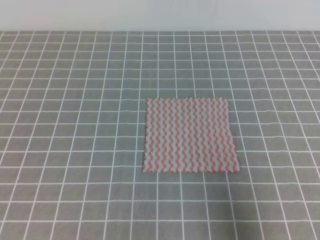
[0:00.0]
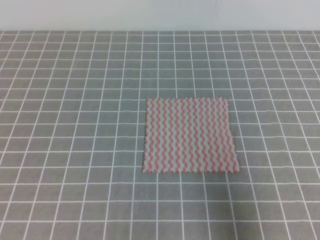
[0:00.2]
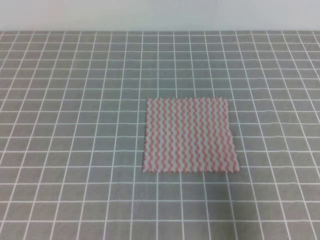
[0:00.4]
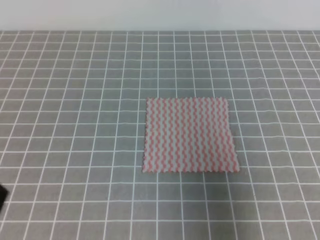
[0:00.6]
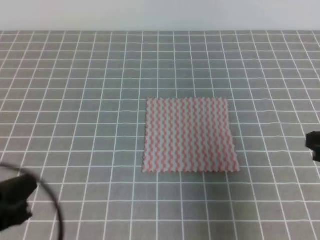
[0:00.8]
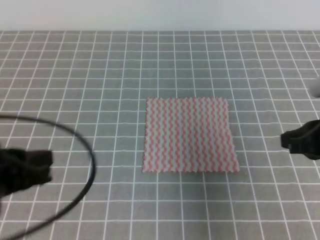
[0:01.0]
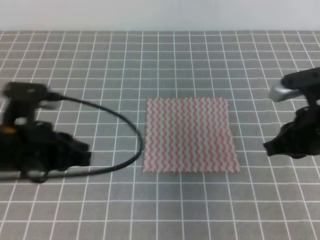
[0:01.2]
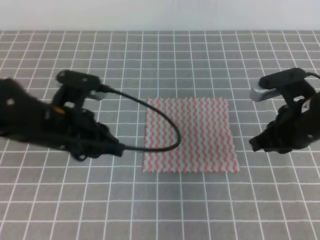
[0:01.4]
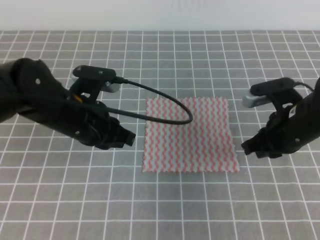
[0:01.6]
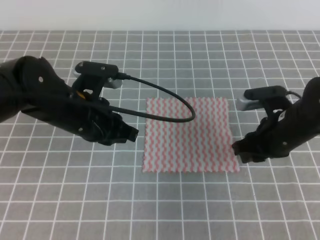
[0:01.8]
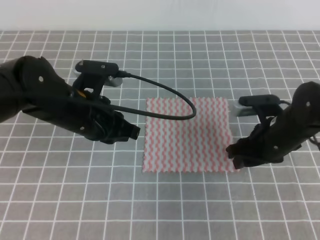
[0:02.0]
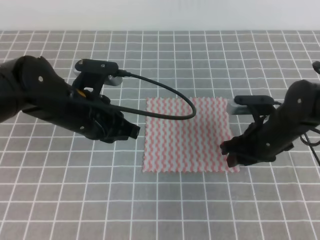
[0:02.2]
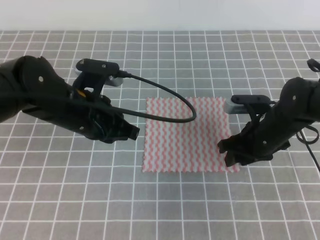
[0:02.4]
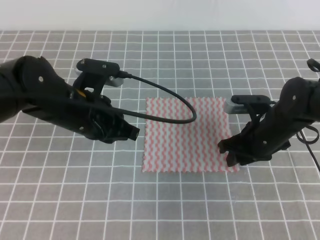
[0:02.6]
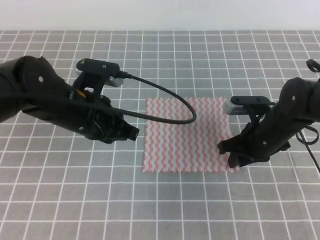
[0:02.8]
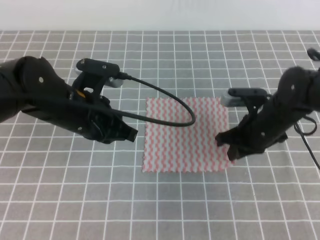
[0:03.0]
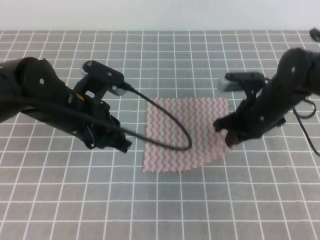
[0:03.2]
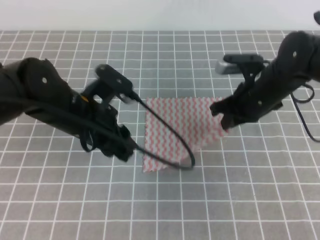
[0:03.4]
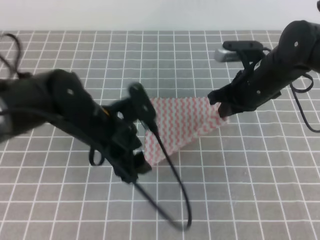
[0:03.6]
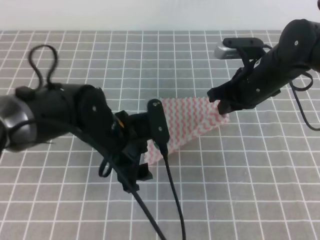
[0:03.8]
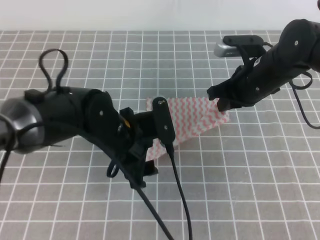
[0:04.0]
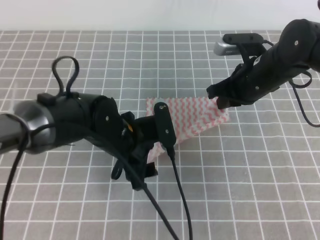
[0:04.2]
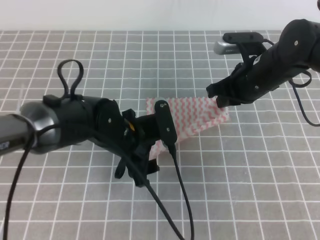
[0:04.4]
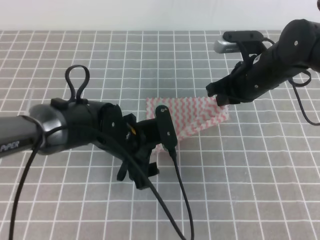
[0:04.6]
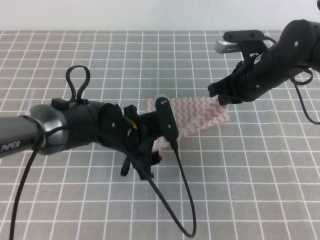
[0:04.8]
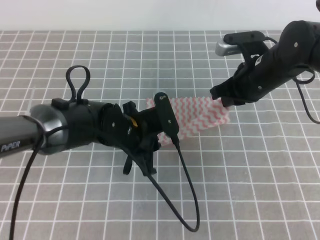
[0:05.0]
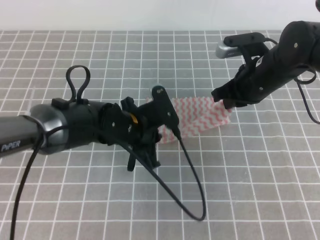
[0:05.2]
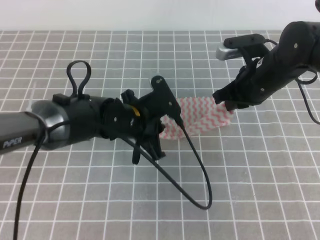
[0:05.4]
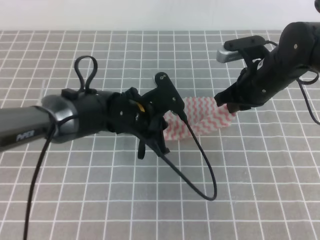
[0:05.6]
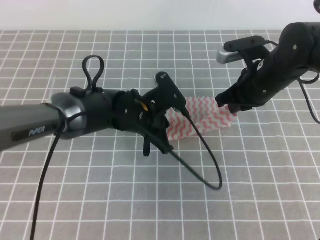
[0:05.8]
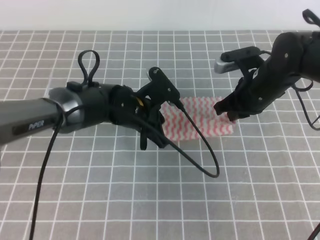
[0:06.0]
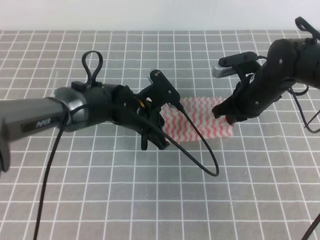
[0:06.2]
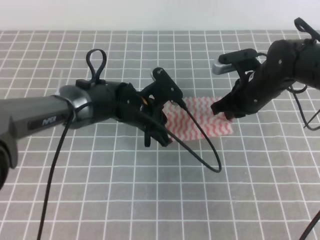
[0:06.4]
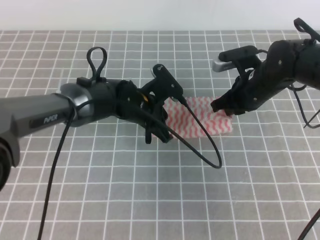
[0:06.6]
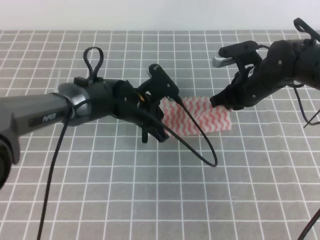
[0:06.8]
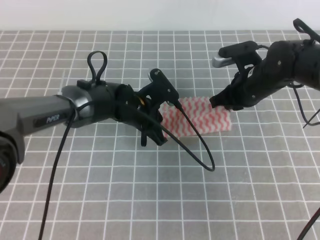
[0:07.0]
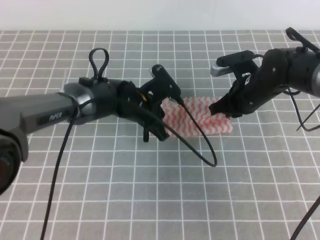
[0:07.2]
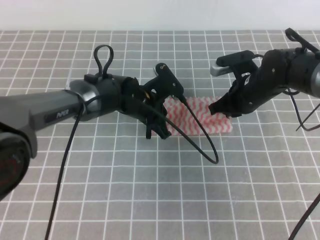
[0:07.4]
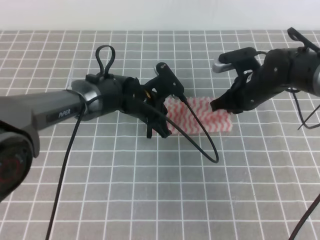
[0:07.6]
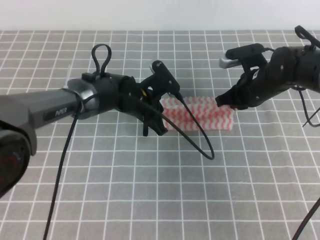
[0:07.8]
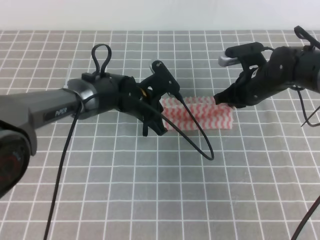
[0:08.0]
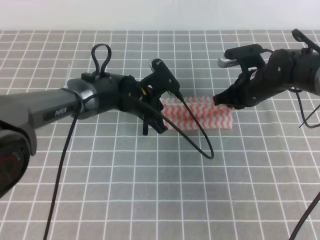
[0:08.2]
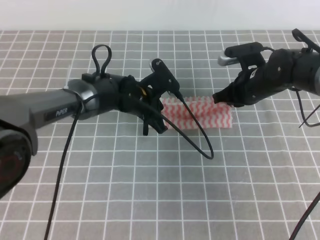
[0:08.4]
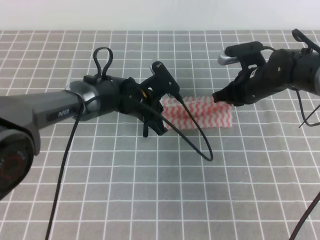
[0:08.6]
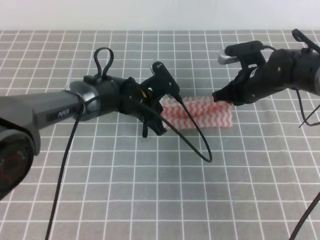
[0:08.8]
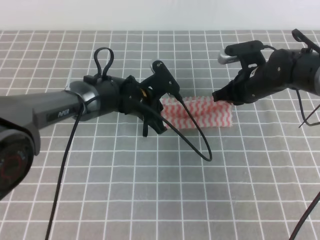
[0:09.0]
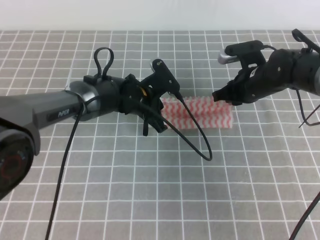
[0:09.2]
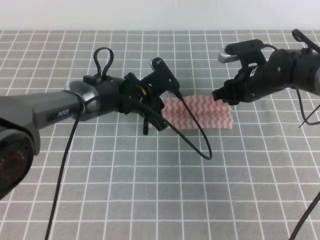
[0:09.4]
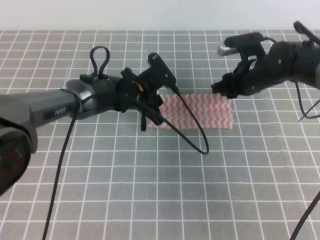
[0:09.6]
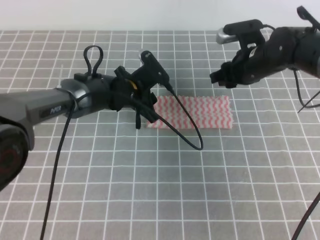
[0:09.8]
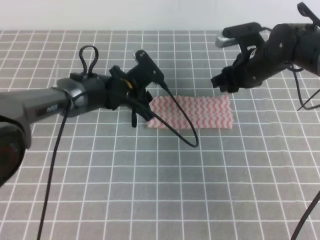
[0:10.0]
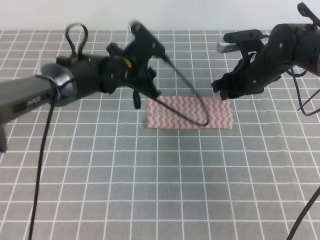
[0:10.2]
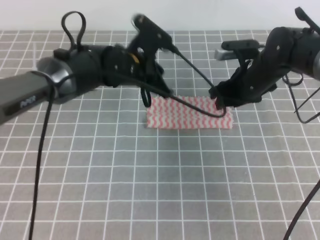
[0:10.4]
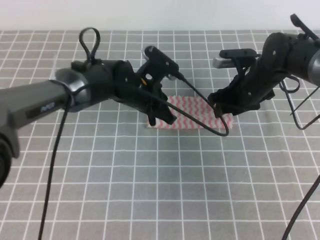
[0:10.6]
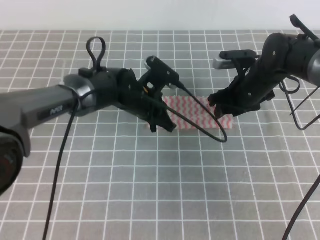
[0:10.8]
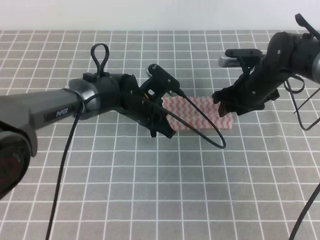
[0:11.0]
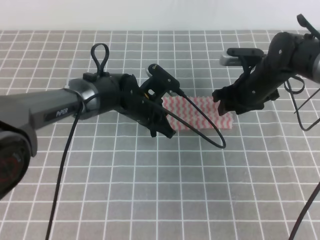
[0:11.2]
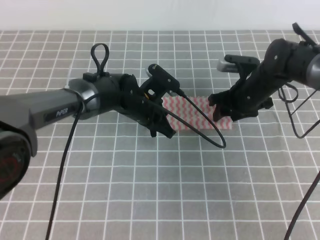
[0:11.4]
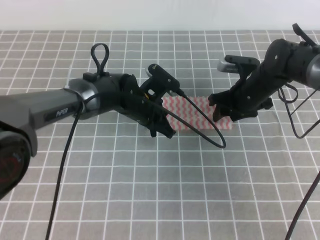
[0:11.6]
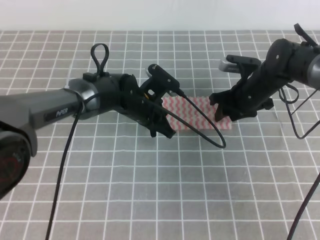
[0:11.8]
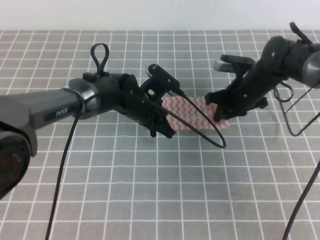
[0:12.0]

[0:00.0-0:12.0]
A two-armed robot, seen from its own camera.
0:00.0 to 0:01.6: The right gripper heads forward and to the left, covering approximately 20 cm, while the left gripper goes approximately 25 cm forward and to the right.
0:01.6 to 0:03.0: The right gripper ends up some 5 cm from where it was, and opens, then closes again.
0:03.0 to 0:04.4: The right gripper goes roughly 5 cm upward. Meanwhile the left gripper moves downward and to the right, approximately 10 cm, and opens.
0:04.4 to 0:06.0: The left gripper goes approximately 5 cm forward, and closes up.
0:06.0 to 0:09.0: There are only small adjustments of the grippers.
0:09.0 to 0:10.4: The right gripper opens its fingers, while the left gripper travels upward by about 5 cm, and opens, then closes again.
0:10.4 to 0:12.0: The right gripper closes its fingers, while the left gripper is displaced downward by about 5 cm.

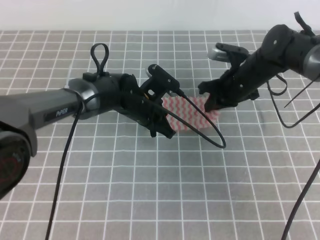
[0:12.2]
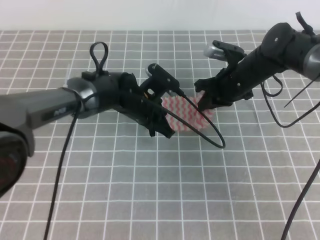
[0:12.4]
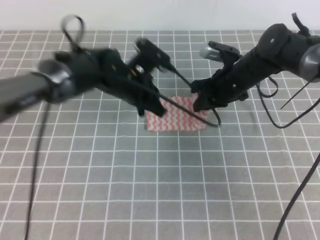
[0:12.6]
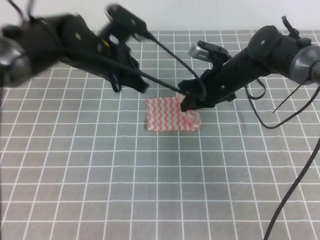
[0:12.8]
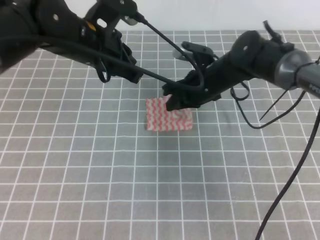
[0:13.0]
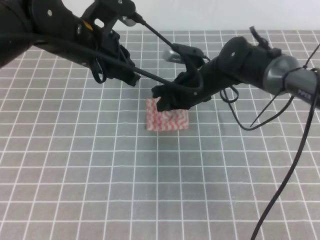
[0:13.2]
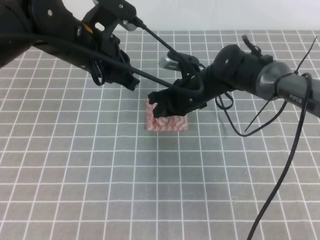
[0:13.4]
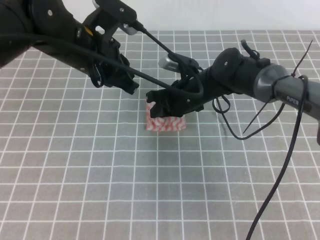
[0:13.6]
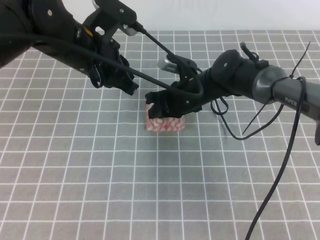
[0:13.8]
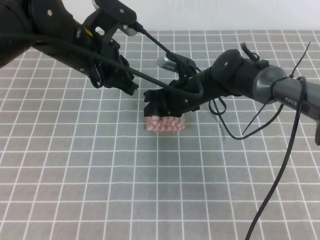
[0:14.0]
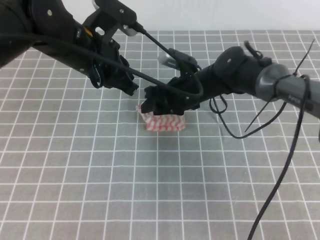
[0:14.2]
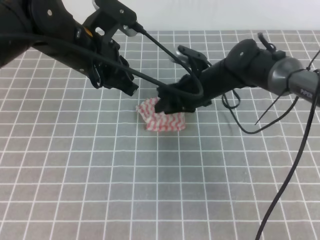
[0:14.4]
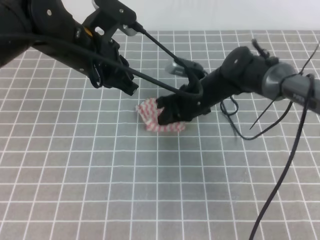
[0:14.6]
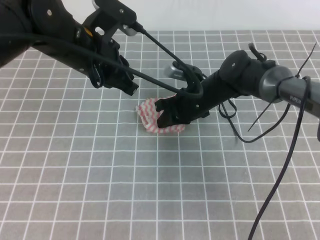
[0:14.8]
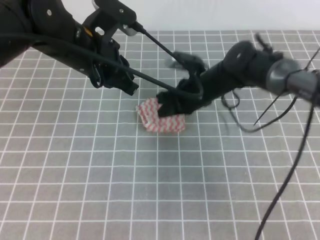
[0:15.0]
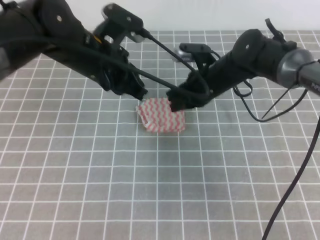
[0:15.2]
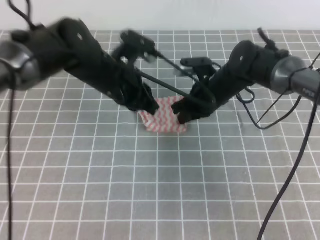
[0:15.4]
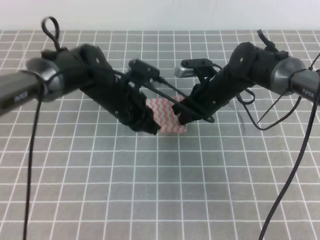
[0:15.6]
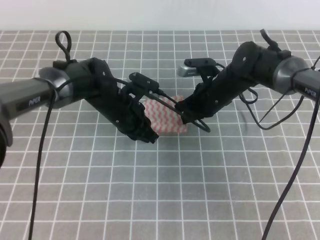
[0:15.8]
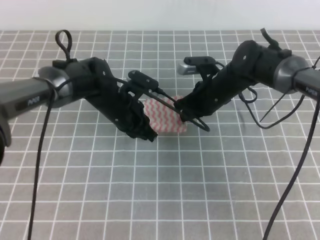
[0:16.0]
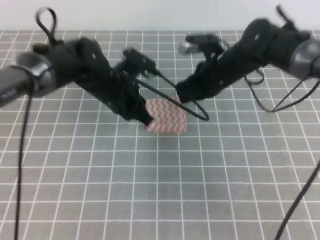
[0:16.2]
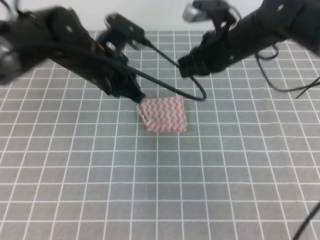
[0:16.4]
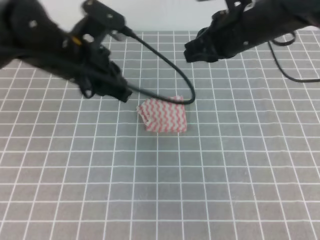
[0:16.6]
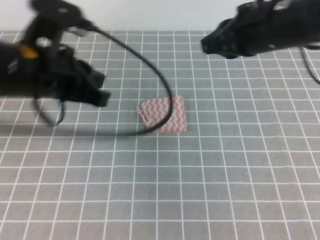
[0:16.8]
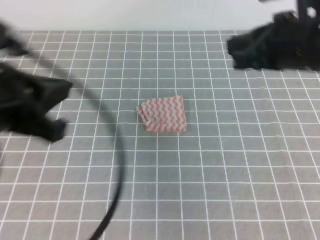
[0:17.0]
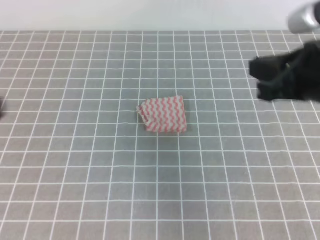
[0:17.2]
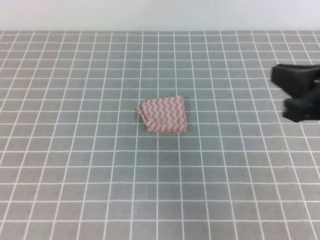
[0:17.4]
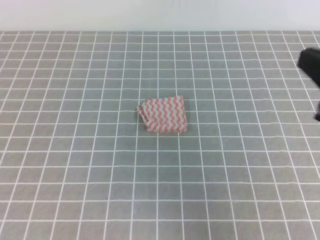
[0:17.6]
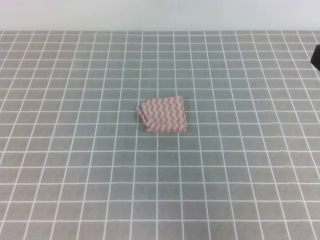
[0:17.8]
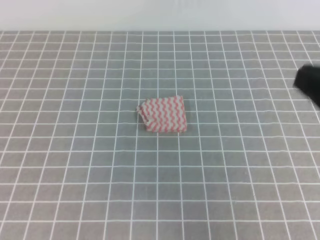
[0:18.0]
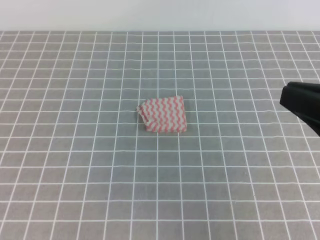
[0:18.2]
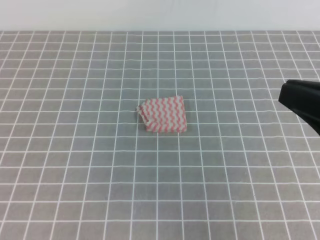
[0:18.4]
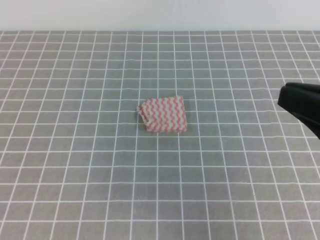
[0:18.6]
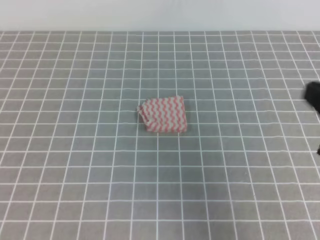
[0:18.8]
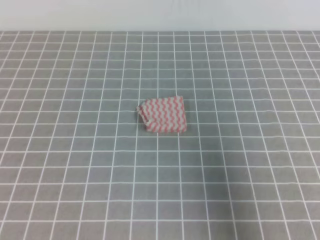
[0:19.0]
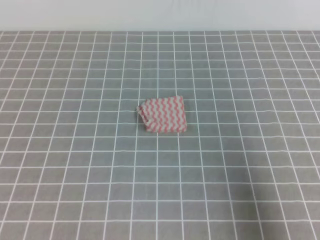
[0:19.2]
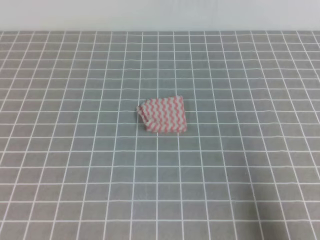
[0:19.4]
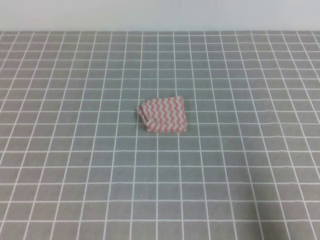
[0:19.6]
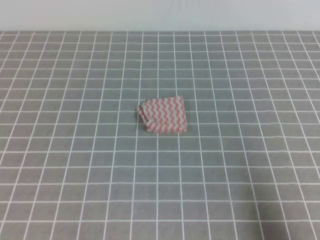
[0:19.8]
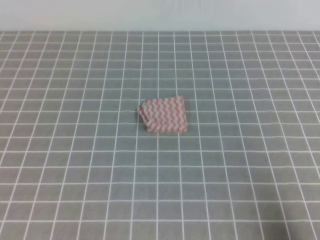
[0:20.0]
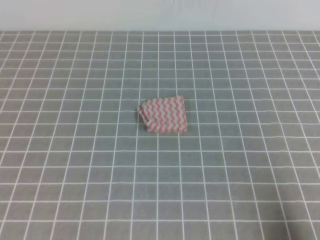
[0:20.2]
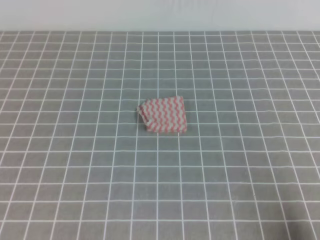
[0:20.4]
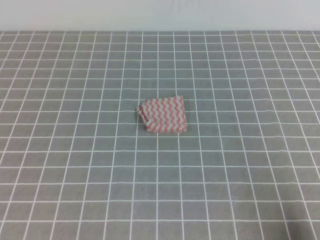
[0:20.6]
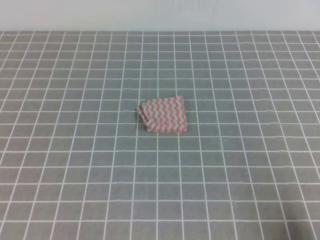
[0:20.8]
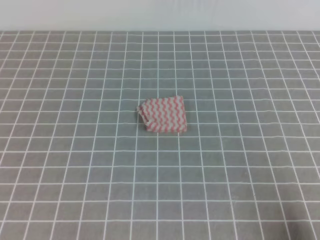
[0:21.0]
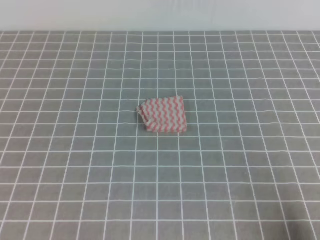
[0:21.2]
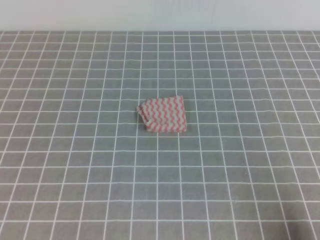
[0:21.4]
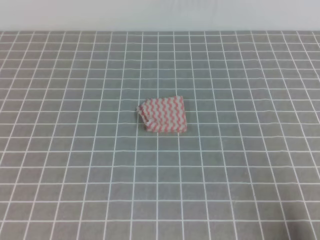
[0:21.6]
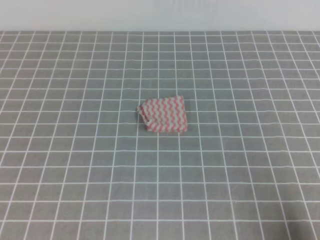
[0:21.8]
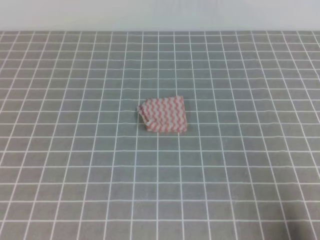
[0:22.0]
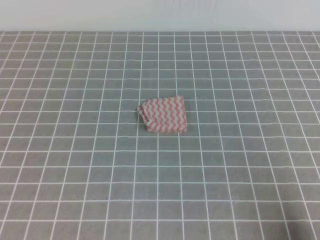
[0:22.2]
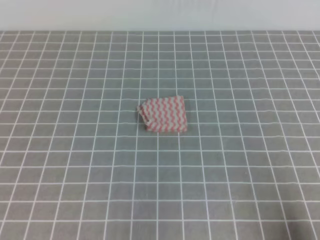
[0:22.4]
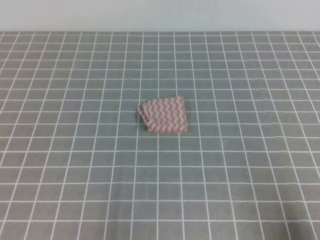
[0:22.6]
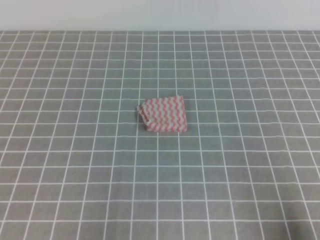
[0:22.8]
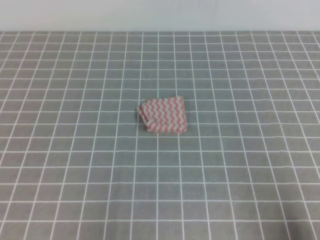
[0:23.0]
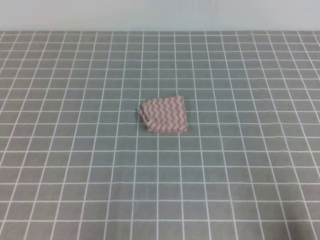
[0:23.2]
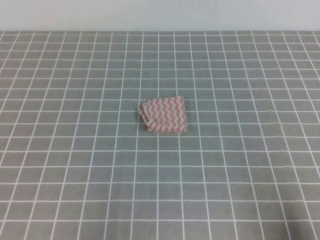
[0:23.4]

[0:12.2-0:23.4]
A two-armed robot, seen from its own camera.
Step, 0:12.2 to 0:23.4: Fold the towel.
0:12.2 to 0:13.8: The left gripper shifts approximately 20 cm upward and to the left, while the right gripper shifts about 10 cm to the left.
0:13.8 to 0:15.4: The left gripper goes some 5 cm downward, while the right gripper opens, then closes again.
0:15.4 to 0:17.0: The right gripper is displaced upward, backward and to the right by some 25 cm, while the left gripper heads backward, upward and to the left, covering approximately 25 cm.
0:17.0 to 0:18.6: The left gripper goes roughly 20 cm backward, to the left and downward. The right gripper moves backward, approximately 15 cm.
0:18.6 to 0:20.2: The right gripper travels downward, to the right and backward by about 20 cm.
